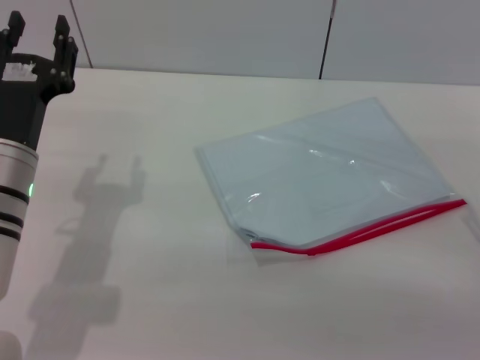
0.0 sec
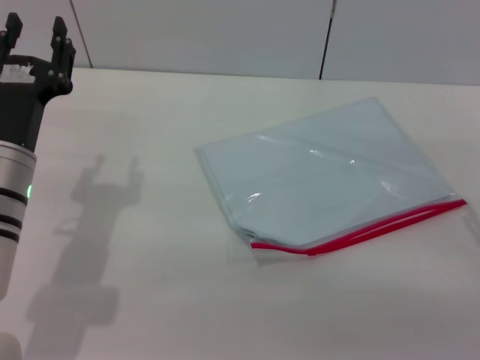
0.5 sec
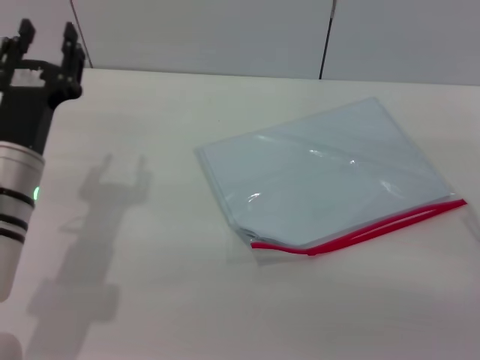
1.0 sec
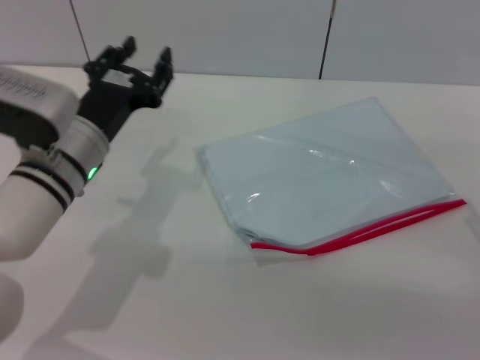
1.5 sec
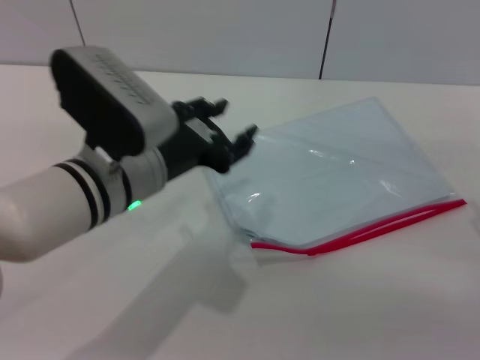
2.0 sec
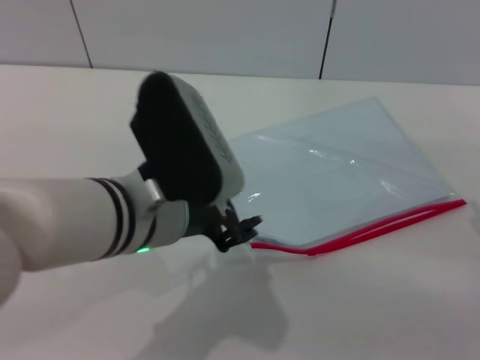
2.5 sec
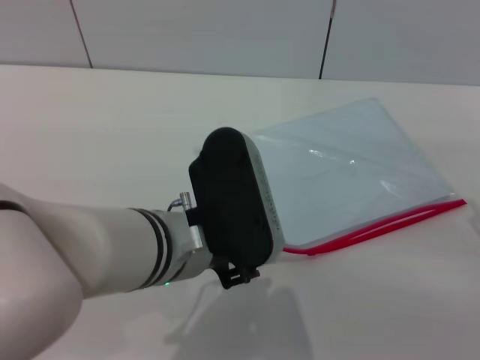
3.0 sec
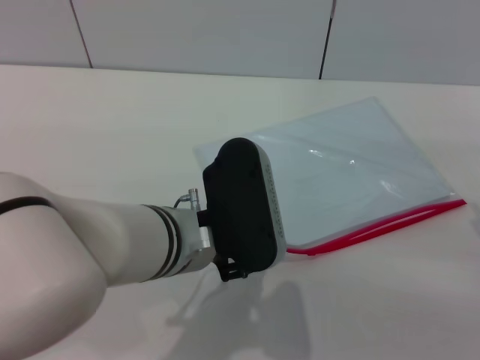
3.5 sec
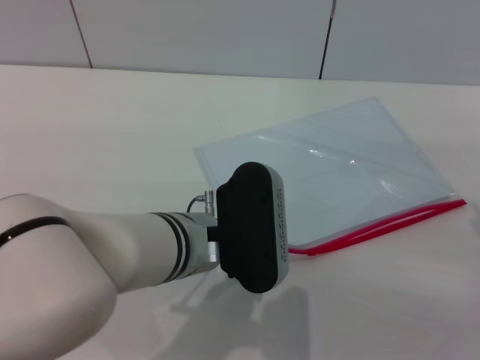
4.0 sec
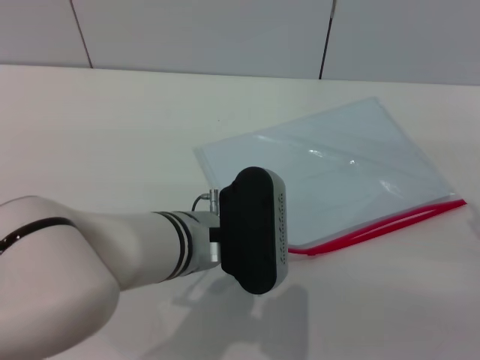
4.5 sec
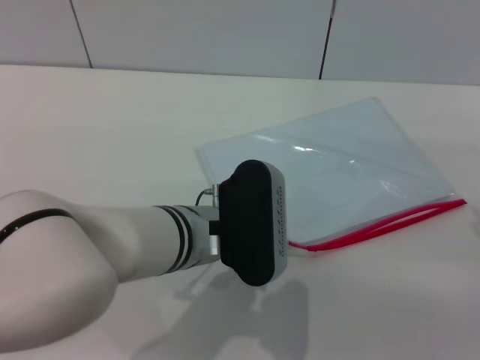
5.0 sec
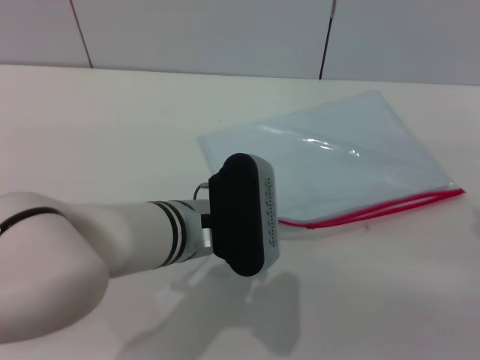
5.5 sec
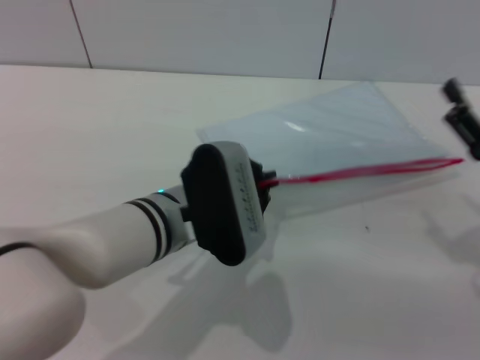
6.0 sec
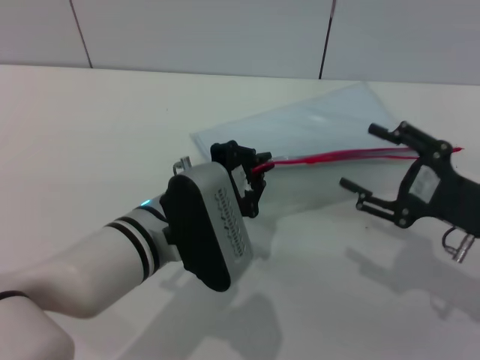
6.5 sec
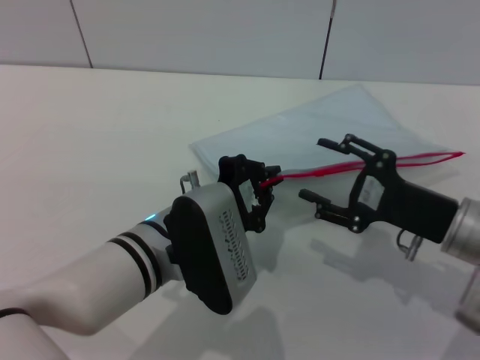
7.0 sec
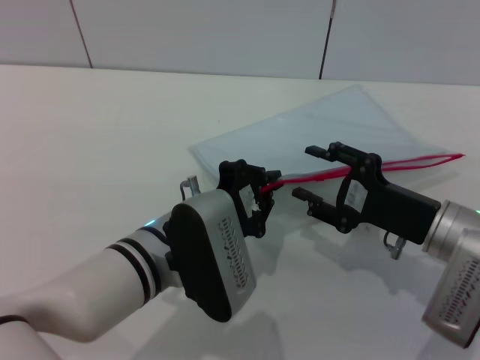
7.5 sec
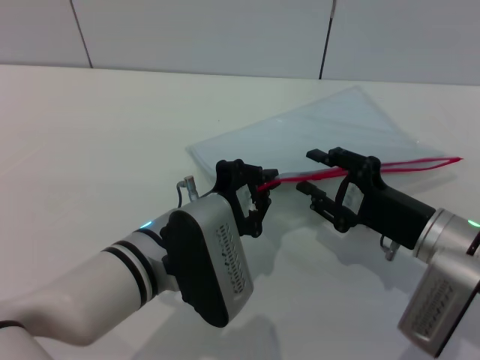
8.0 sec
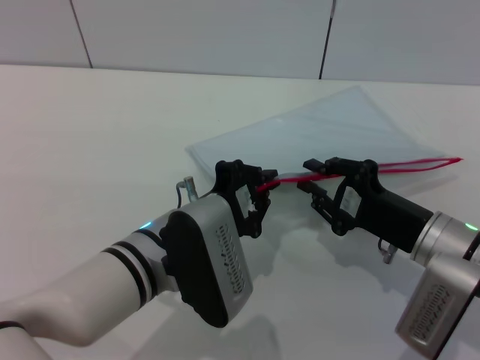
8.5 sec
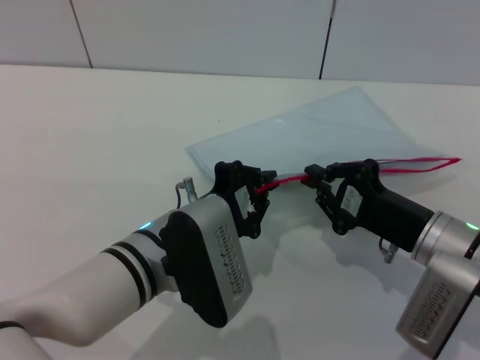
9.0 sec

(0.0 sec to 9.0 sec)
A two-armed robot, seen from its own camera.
Step, 0.0 sec - 6.0 sec: Pick up the transparent plastic bag with the left gripper.
0.0 sec - 2.0 sec: The left gripper moves to the right, about 10 cm.
2.0 sec - 4.5 sec: The left gripper goes some 5 cm to the right.
4.5 sec - 7.0 sec: The left gripper closes its fingers; the right gripper travels to the left by about 10 cm.
7.0 sec - 9.0 sec: The right gripper closes.

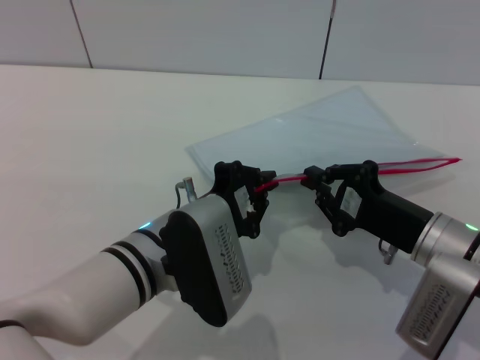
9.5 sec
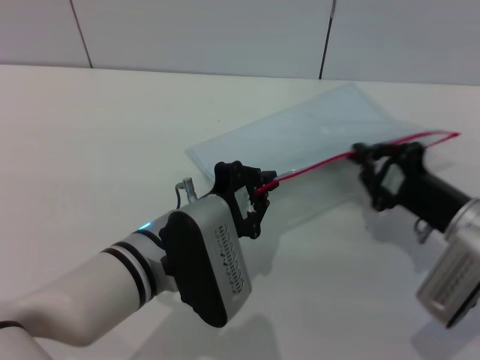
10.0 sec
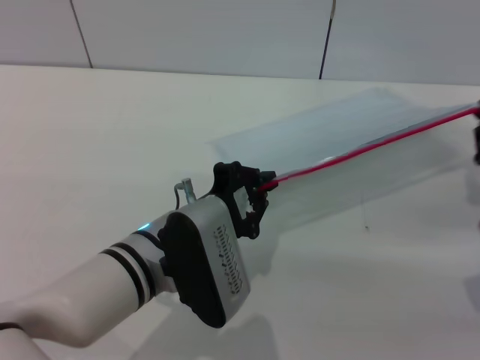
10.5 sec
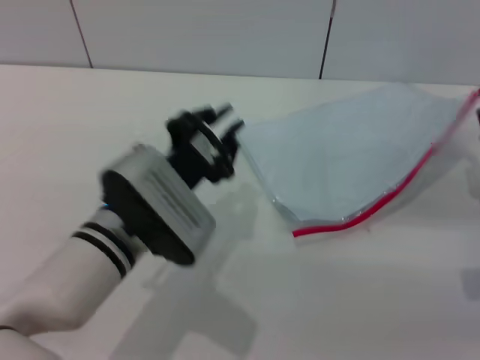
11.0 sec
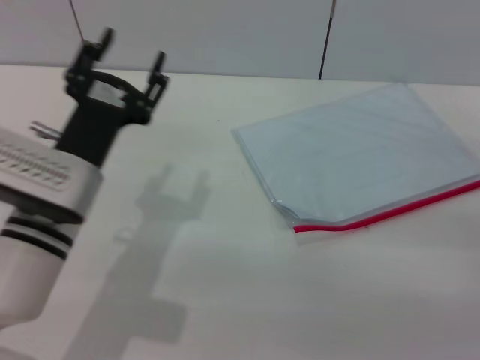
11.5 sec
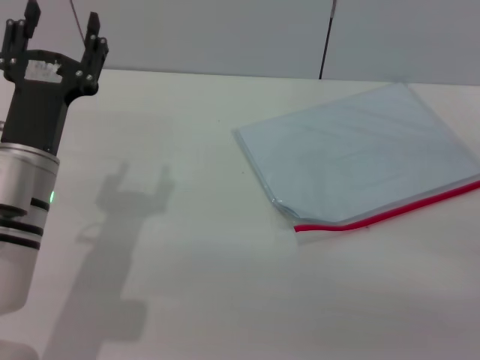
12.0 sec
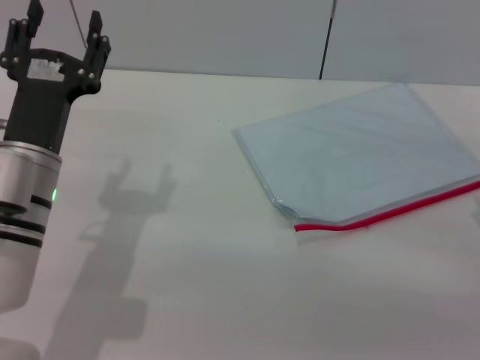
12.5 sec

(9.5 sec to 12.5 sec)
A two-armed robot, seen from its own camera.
9.5 sec - 11.0 sec: The right gripper shifts roughly 10 cm to the right.
11.0 sec - 12.5 sec: The left gripper moves to the left, roughly 10 cm, and opens. The right gripper goes approximately 5 cm backward, and opens its fingers.
